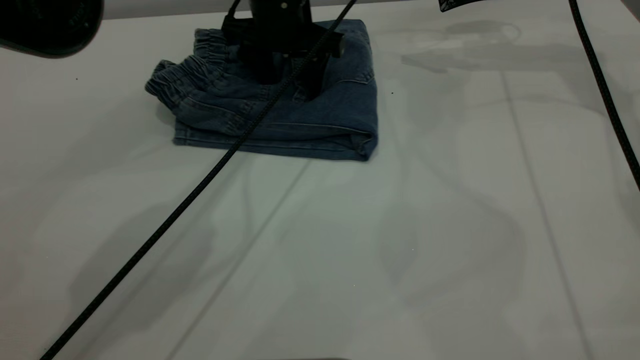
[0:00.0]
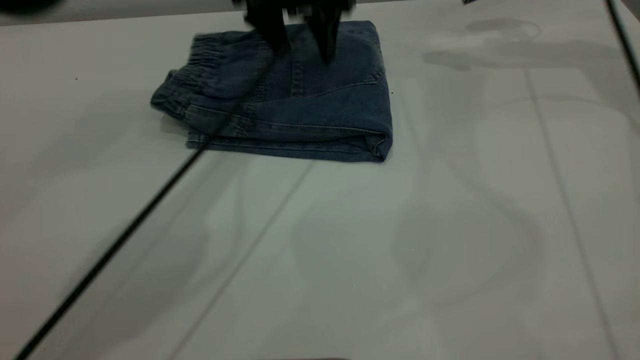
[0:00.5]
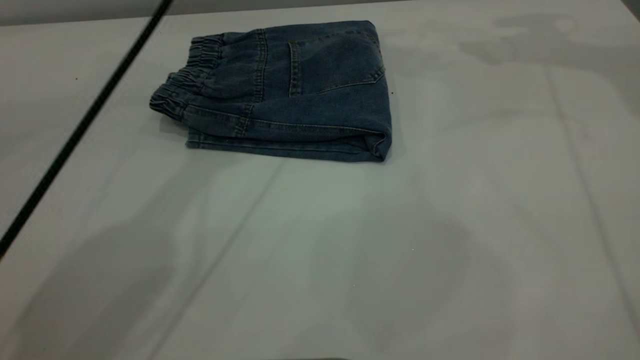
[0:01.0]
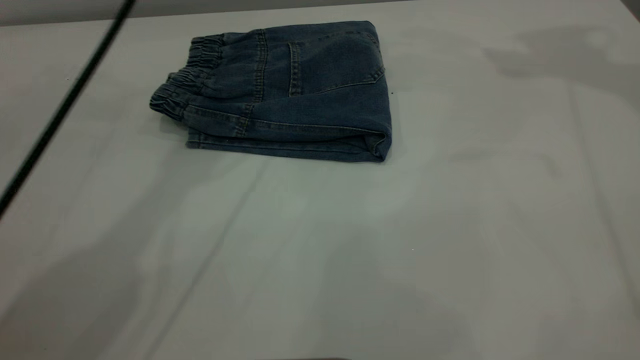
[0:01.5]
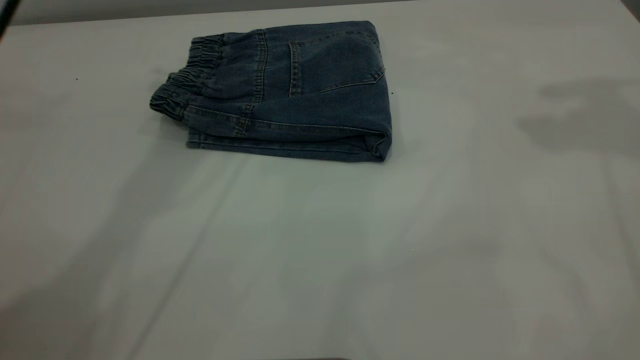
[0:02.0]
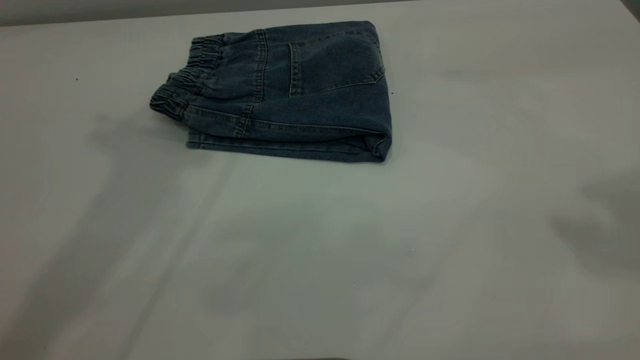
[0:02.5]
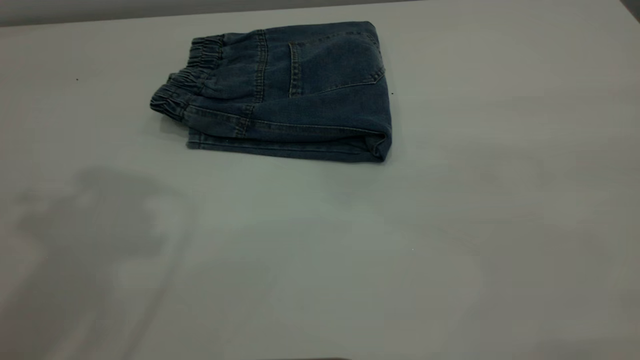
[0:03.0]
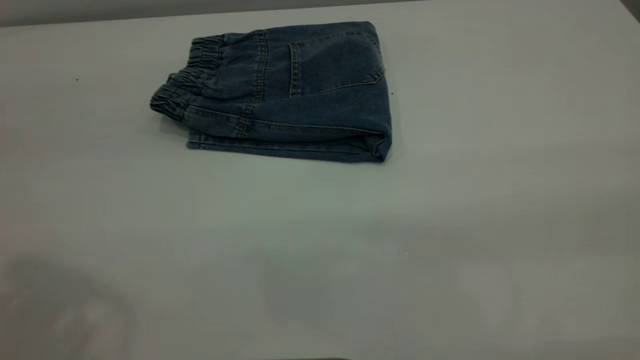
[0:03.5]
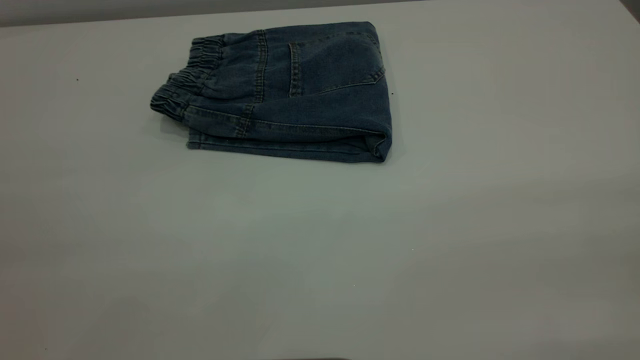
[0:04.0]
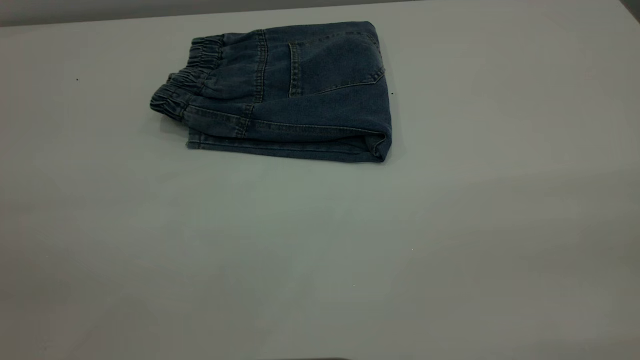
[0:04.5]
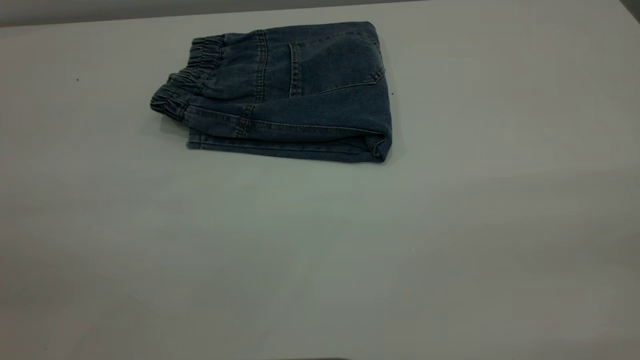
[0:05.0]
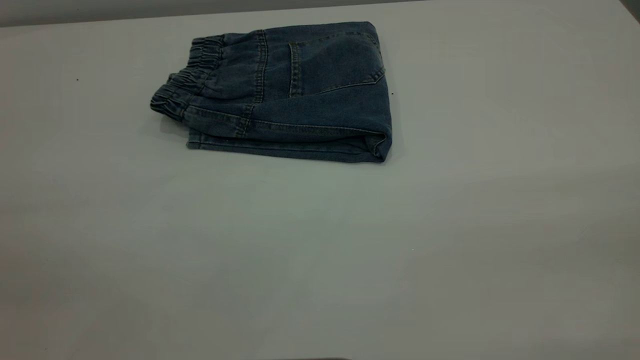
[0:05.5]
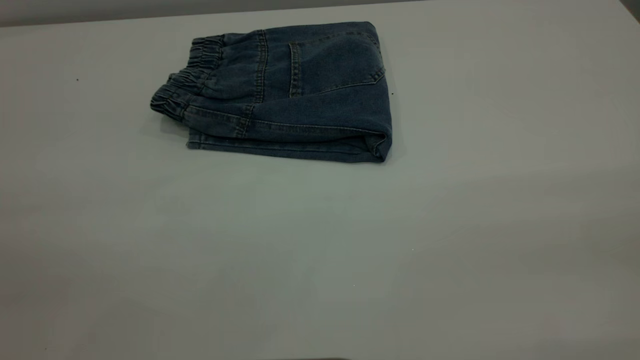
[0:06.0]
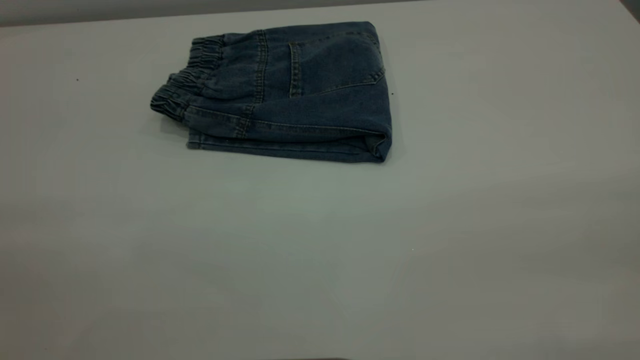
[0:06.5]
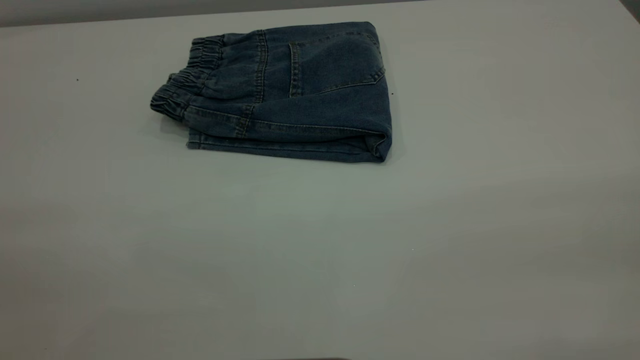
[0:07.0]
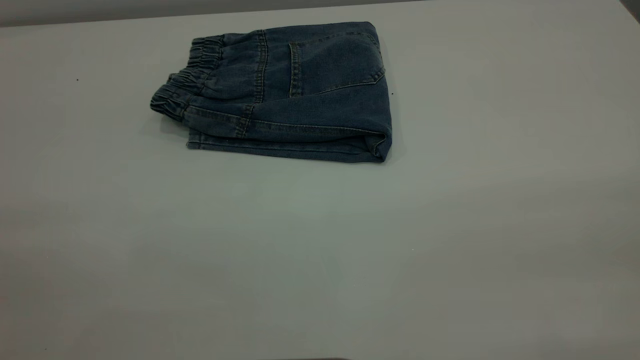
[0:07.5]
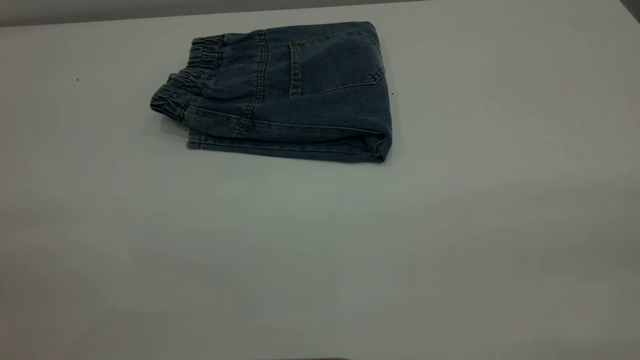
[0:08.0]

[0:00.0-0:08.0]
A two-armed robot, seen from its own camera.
0:00.0 to 0:02.0: The right gripper heads upward and backward, covering some 30 cm; the left gripper travels upward by approximately 30 cm.
